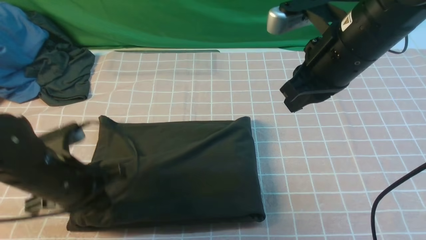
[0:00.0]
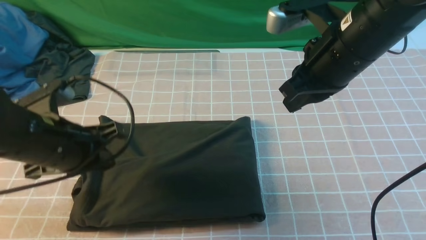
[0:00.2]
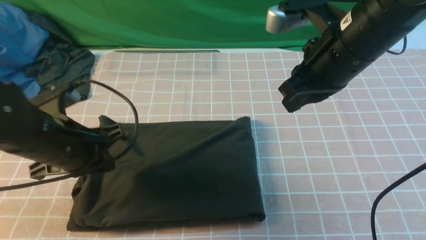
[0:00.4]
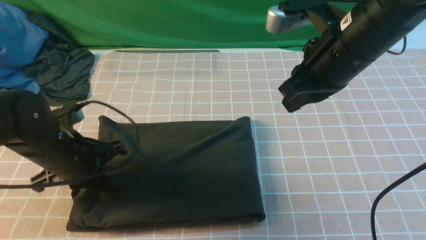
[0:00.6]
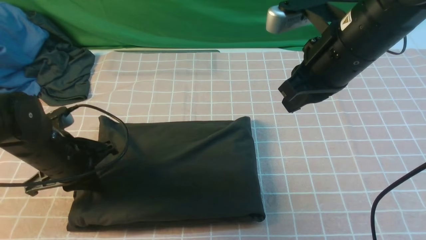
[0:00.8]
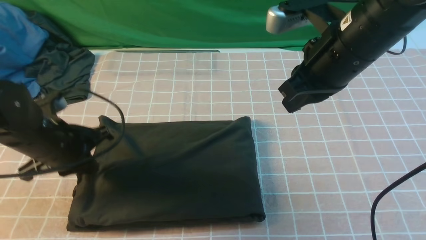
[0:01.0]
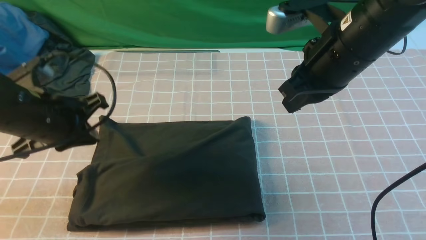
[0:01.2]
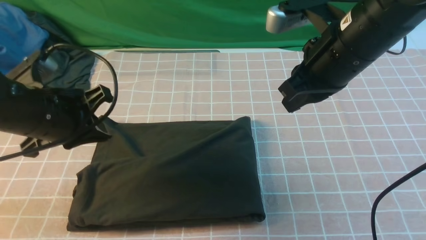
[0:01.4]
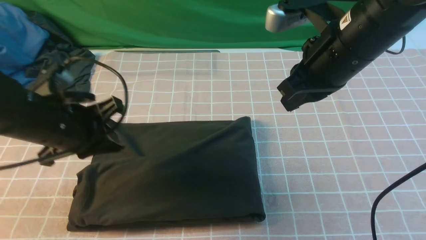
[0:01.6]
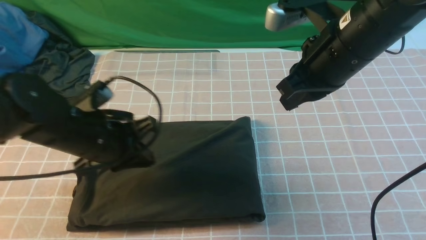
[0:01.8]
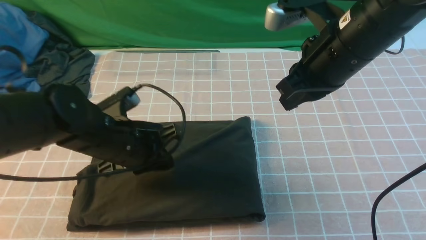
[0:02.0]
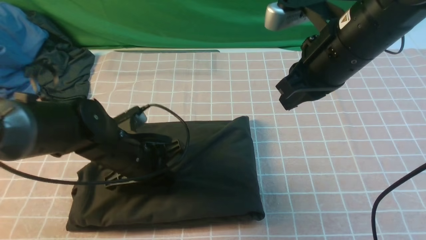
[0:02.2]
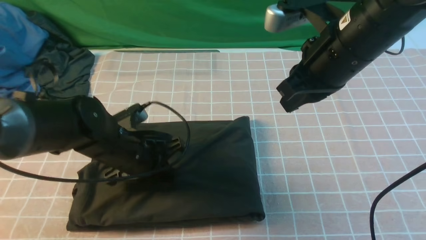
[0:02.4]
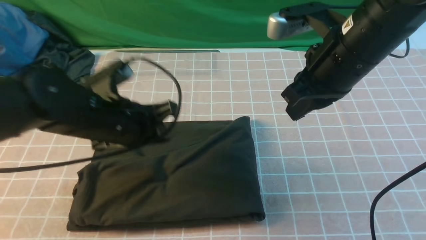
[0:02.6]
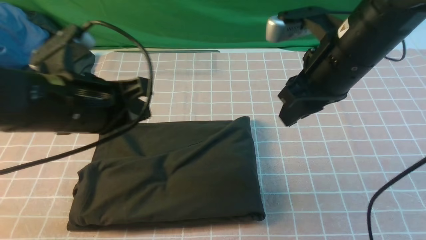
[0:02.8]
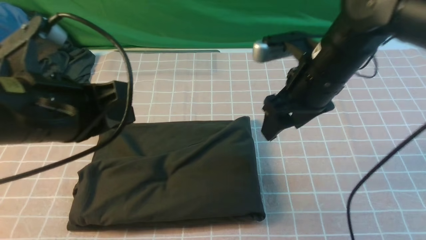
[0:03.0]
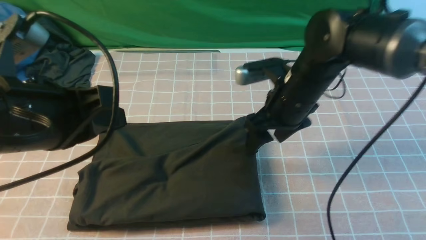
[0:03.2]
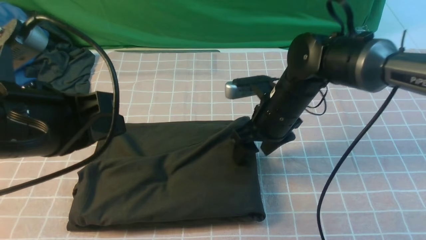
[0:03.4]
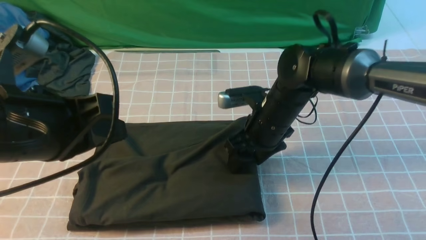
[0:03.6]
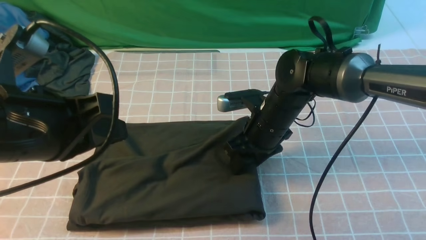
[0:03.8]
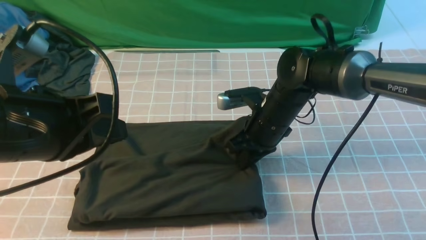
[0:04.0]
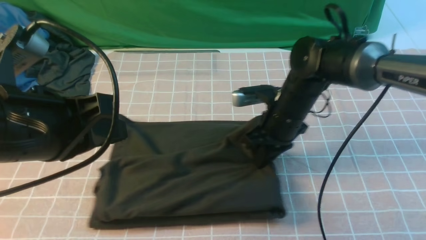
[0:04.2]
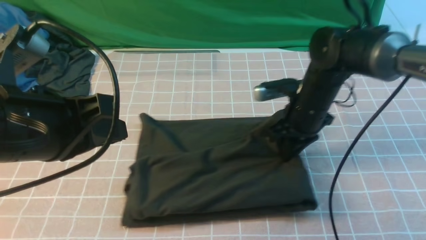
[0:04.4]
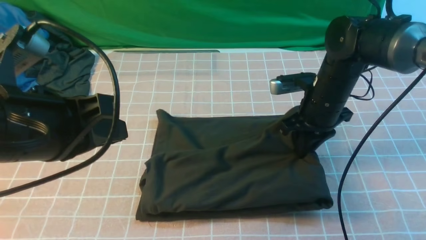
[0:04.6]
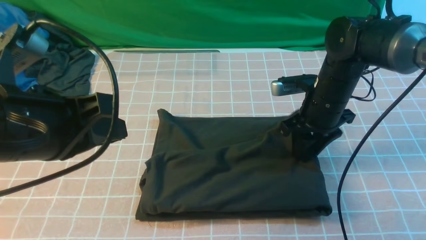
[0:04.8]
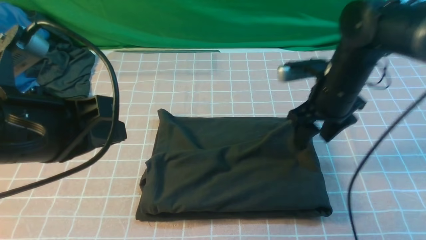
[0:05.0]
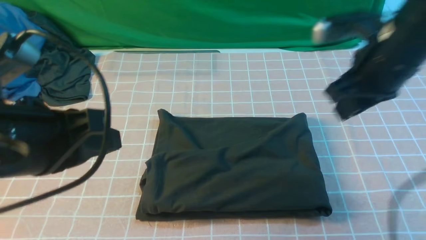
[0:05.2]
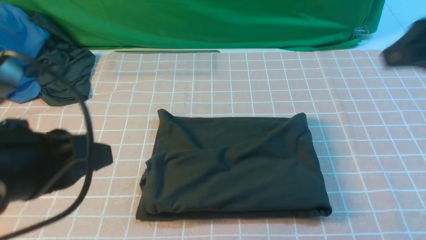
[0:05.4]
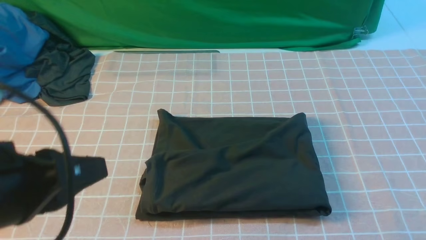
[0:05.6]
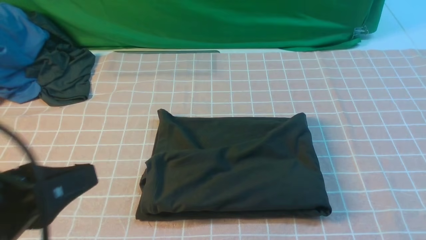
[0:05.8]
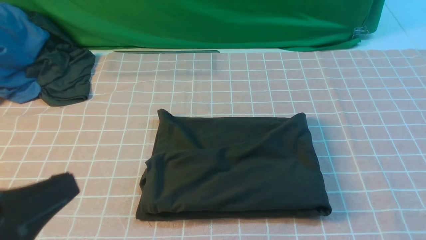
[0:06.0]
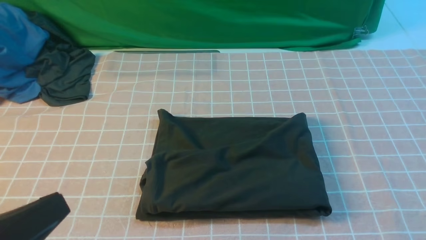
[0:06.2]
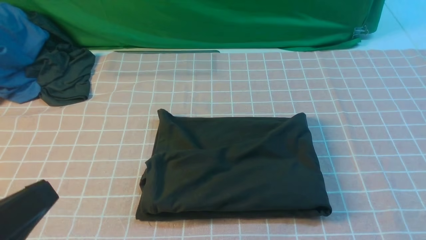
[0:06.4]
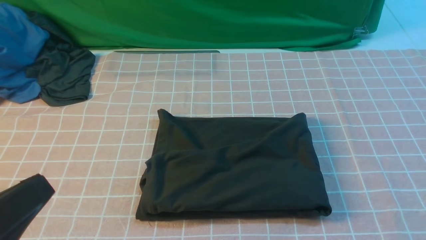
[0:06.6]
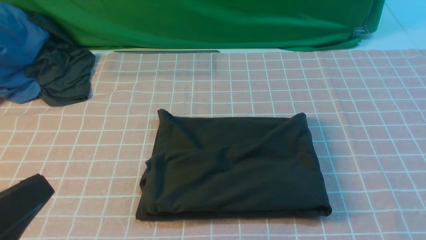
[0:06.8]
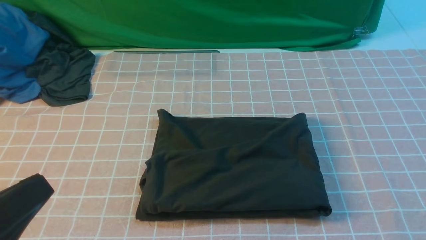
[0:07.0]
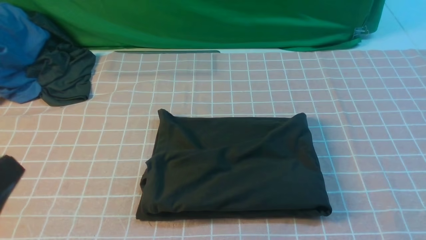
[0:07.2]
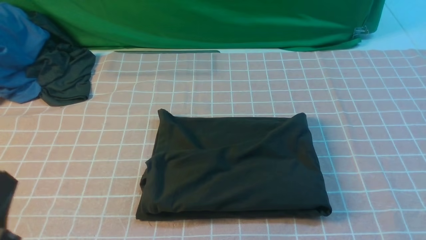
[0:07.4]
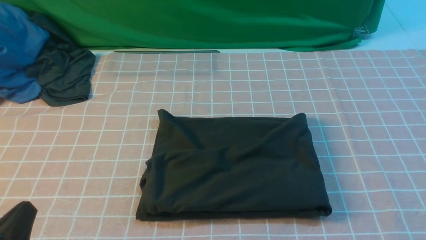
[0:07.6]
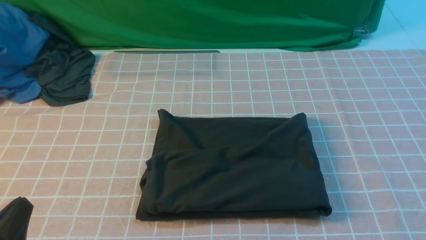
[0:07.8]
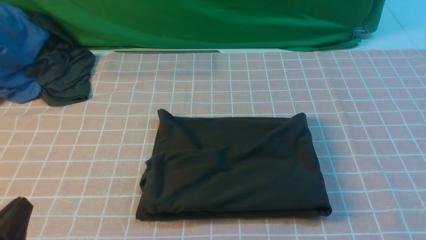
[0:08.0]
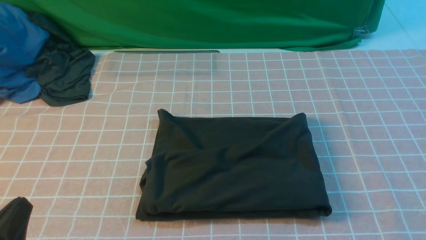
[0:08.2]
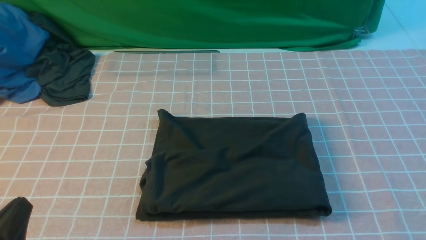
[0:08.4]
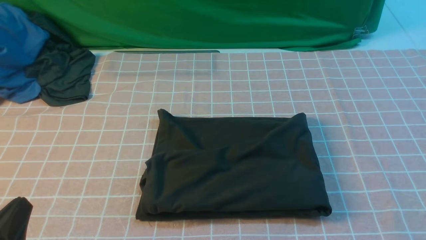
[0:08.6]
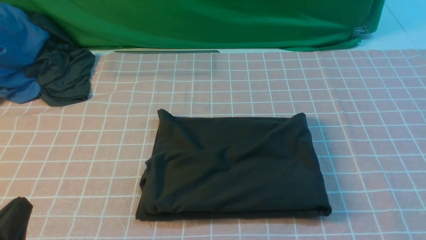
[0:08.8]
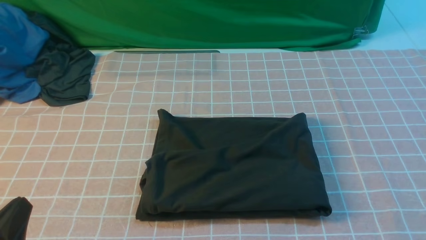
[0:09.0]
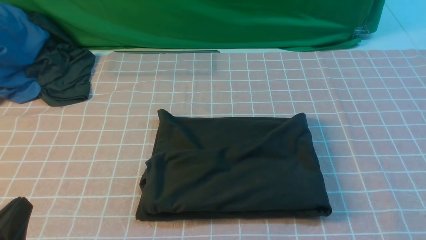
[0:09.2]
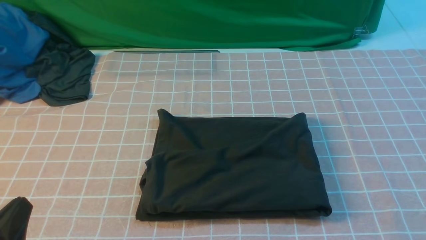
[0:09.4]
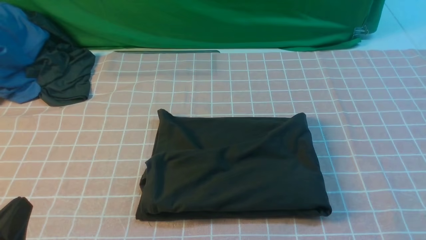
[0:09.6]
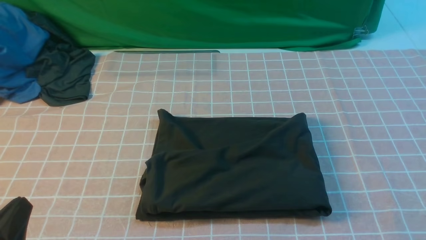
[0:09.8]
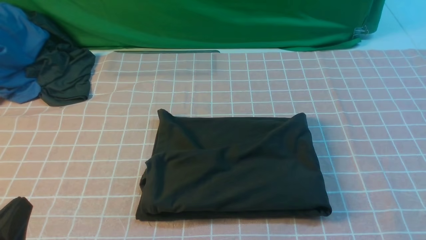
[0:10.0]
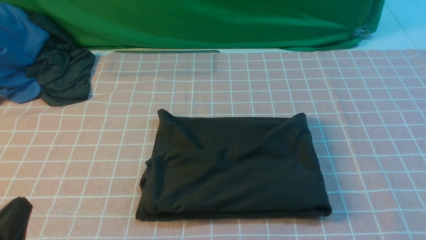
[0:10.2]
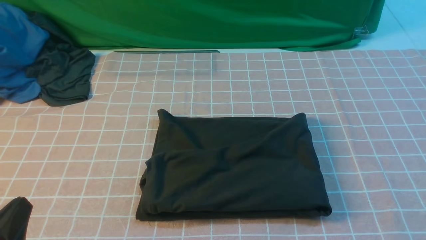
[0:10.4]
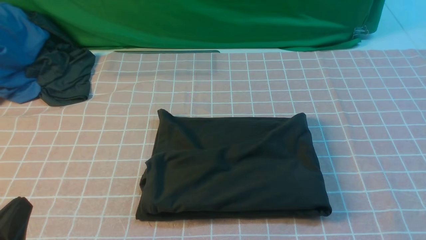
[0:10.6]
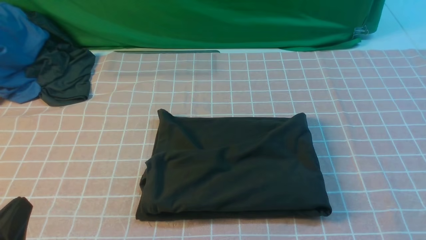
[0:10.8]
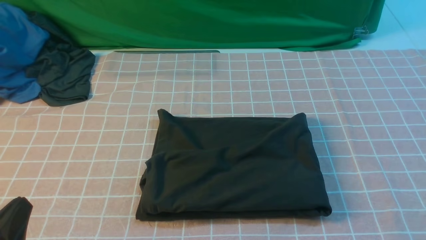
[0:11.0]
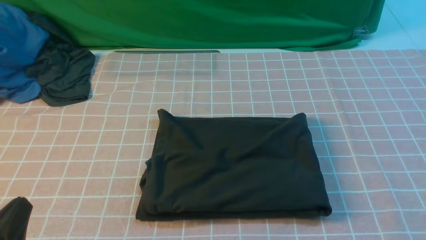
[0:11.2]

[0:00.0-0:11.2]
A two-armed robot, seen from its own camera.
0:00.0 to 0:01.6: The left gripper changes place by approximately 5 cm.
0:01.6 to 0:03.2: The right gripper shifts roughly 10 cm downward, and opens up; the left gripper shifts approximately 15 cm upward and backward.
0:03.2 to 0:04.8: The right gripper travels to the right by roughly 5 cm, and closes up.
0:04.8 to 0:06.4: The right gripper heads backward, covering roughly 35 cm, and closes its fingers; the left gripper is displaced backward by about 15 cm.
0:06.4 to 0:08.0: The left gripper is displaced downward by approximately 10 cm.
0:09.6 to 0:11.2: Both grippers stay about where they are.

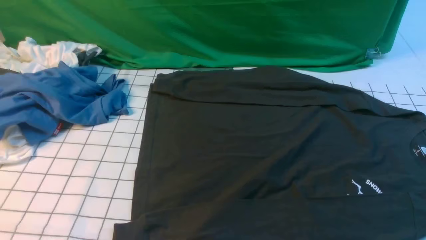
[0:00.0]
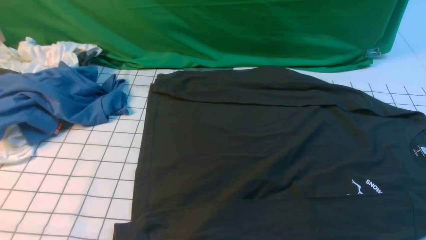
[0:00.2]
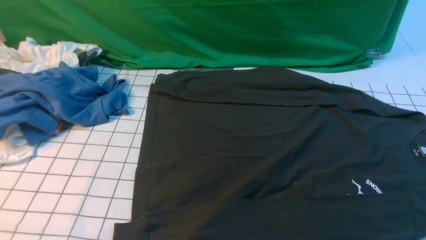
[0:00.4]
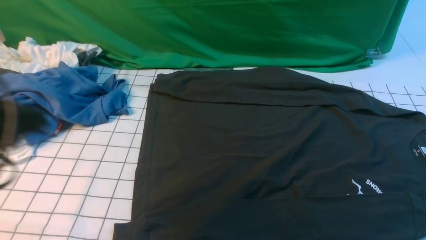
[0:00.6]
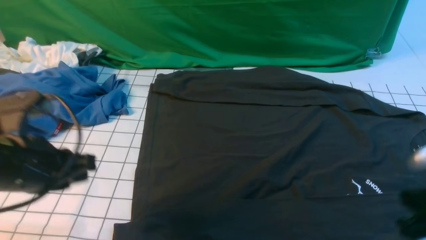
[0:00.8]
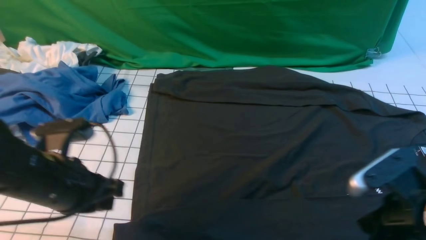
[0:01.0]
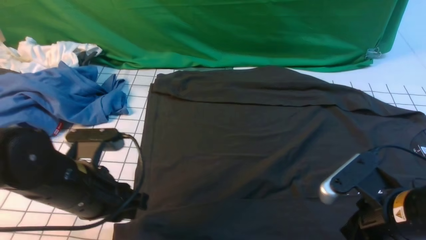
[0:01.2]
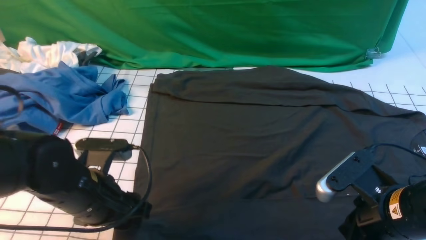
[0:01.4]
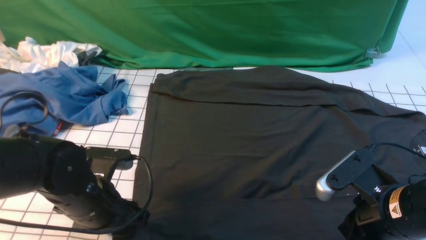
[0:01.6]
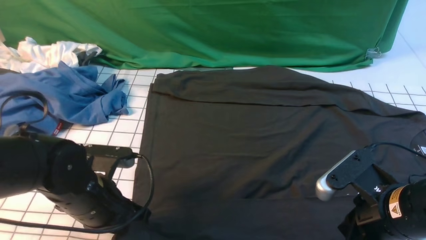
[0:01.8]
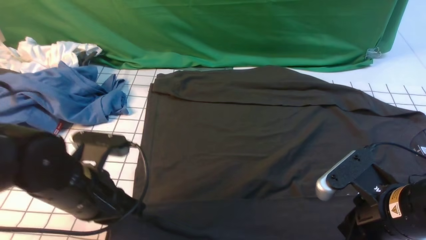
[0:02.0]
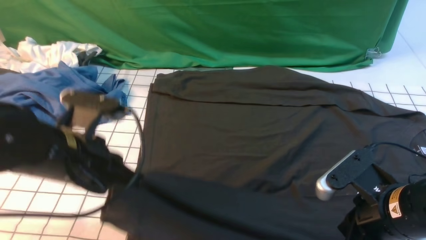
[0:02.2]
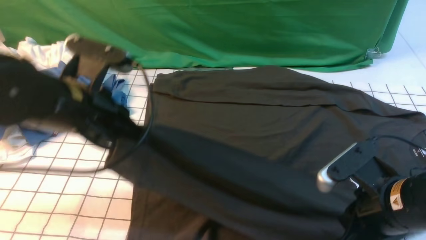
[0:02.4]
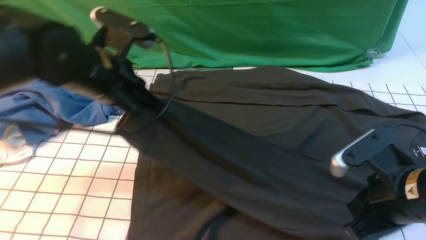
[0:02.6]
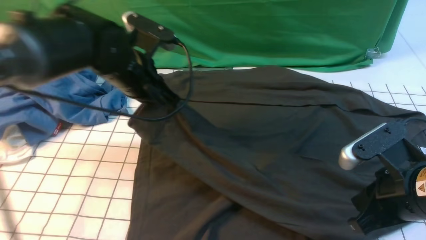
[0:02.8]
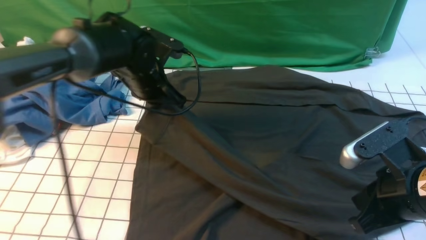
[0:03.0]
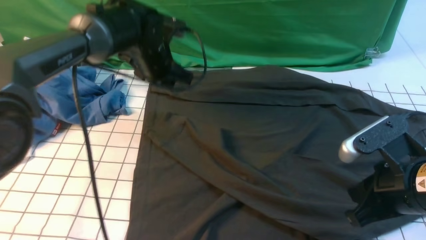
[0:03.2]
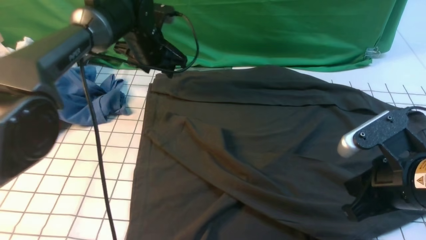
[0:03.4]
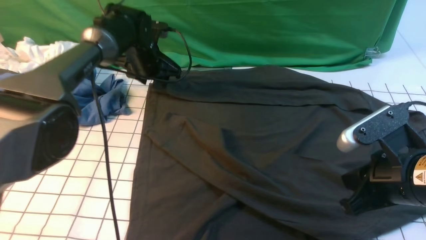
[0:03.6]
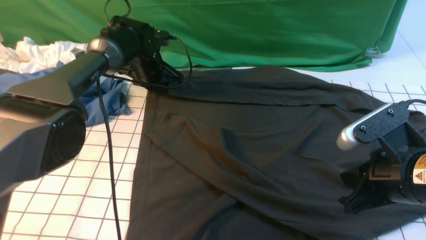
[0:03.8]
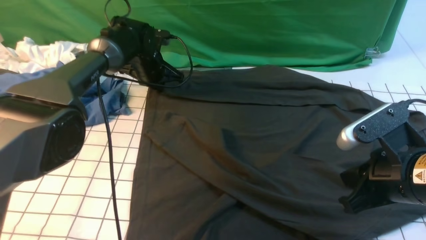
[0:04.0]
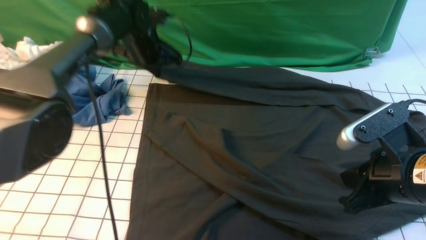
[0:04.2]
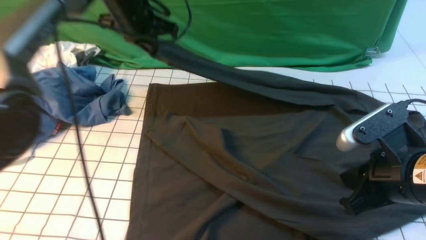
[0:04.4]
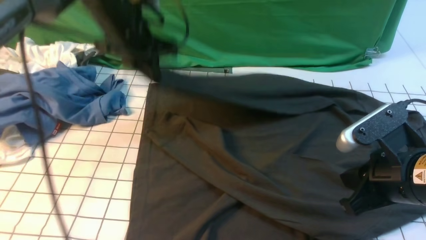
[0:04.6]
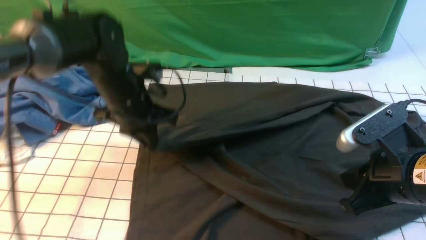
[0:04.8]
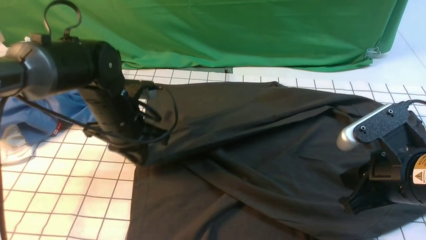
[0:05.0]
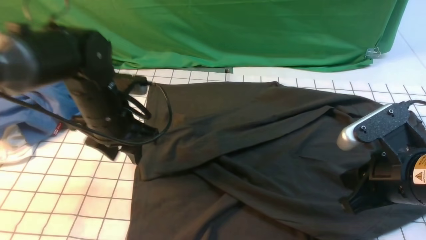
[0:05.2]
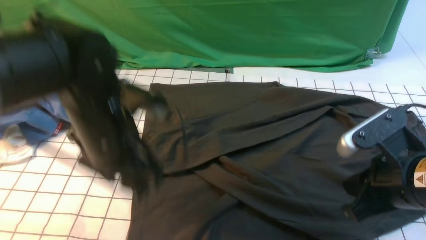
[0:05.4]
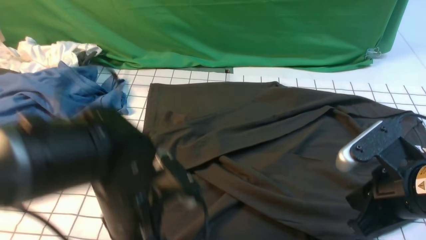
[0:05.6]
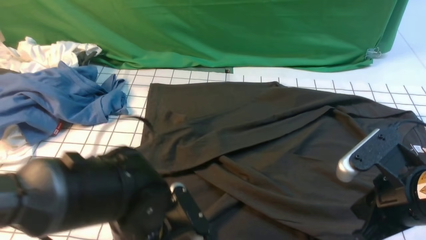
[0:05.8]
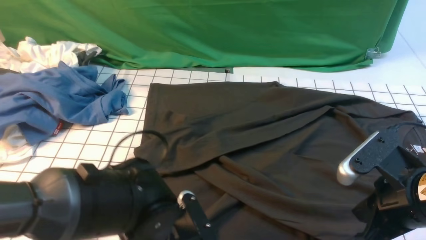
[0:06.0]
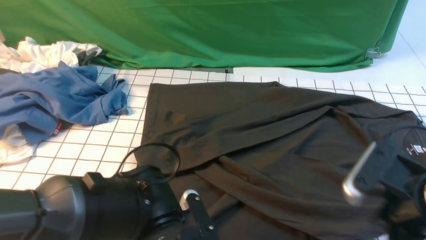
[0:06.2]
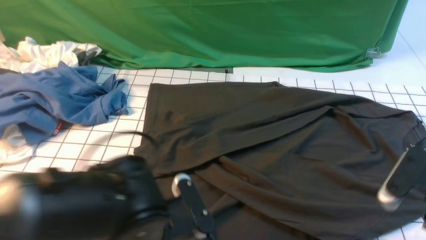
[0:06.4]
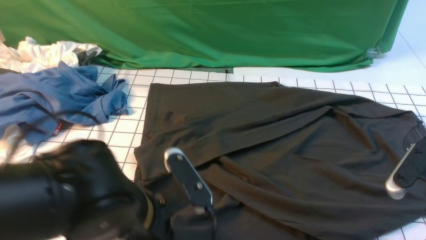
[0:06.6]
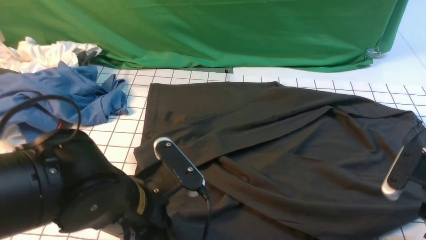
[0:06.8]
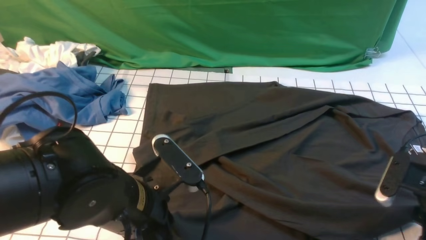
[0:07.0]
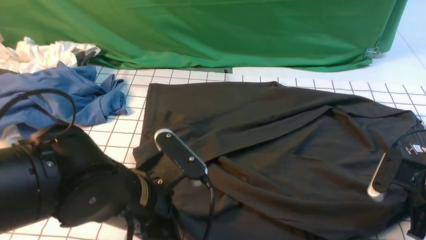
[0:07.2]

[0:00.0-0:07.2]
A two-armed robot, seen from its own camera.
Step, 0:00.0 to 0:02.0: use the left arm to clamp the cuff closest to it.
Step, 0:02.2 to 0:03.2: use the left arm to drag and place the cuff at the centered position on the left edge of the fabric.
Step, 0:03.6 to 0:04.0: use the left arm to clamp the cuff farthest from it.
Step, 0:04.2 to 0:05.0: use the left arm to drag and drop the cuff onto the cuff closest to the left arm.
0:00.0 to 0:01.4: The left gripper shifts roughly 25 cm forward, downward and to the right, and opens its fingers. Meanwhile the right gripper is displaced forward, to the left and downward by approximately 20 cm.
0:01.4 to 0:02.8: The left gripper goes roughly 20 cm forward and upward, and closes up.
0:02.8 to 0:04.4: The left gripper goes roughly 10 cm forward, and opens and closes again.
0:04.4 to 0:05.8: The left gripper heads backward, covering roughly 30 cm, and opens.
0:05.8 to 0:07.2: The left gripper moves upward, about 5 cm, and closes up. Meanwhile the right gripper heads to the right, downward and forward, covering some 15 cm, and opens, then closes again.
